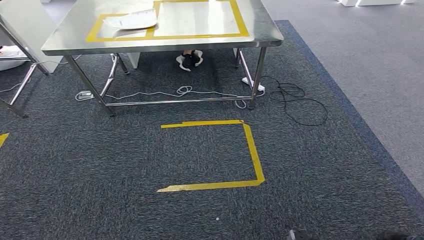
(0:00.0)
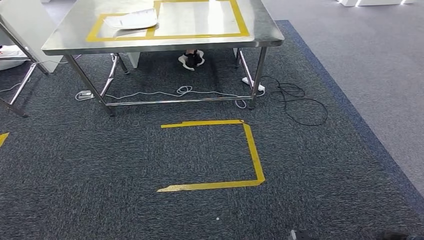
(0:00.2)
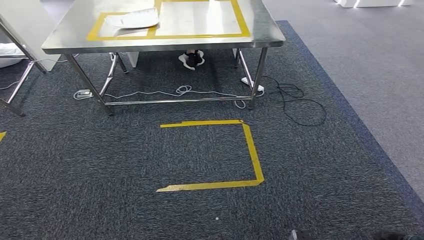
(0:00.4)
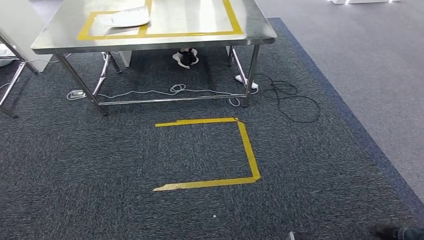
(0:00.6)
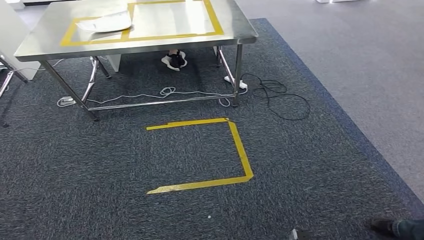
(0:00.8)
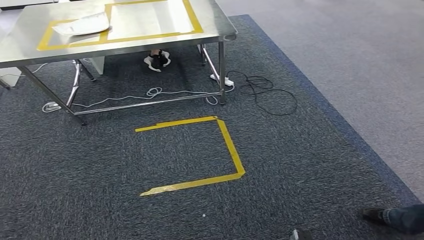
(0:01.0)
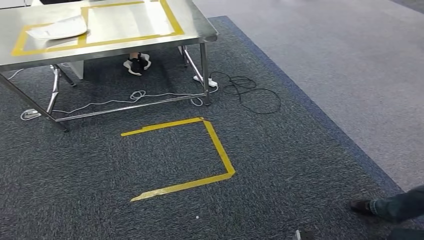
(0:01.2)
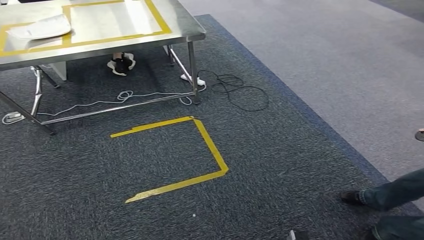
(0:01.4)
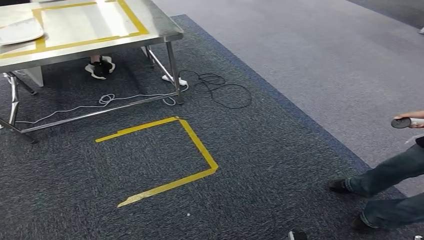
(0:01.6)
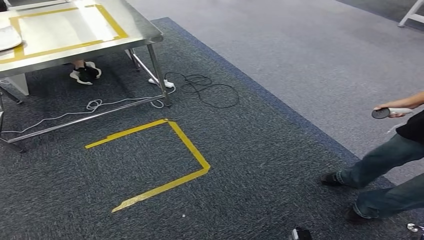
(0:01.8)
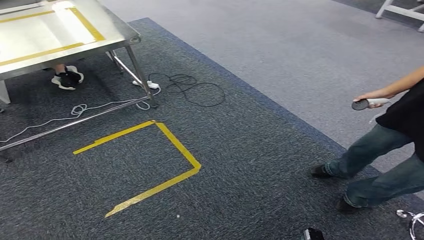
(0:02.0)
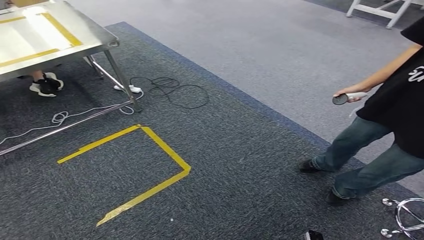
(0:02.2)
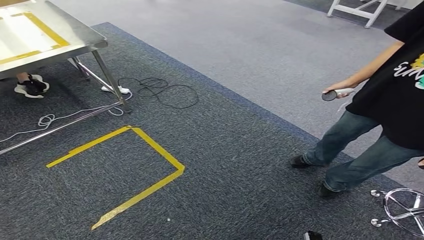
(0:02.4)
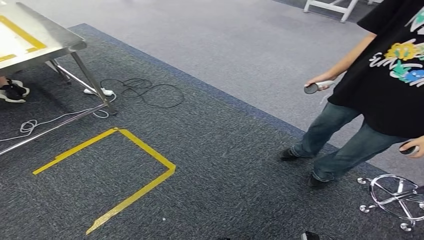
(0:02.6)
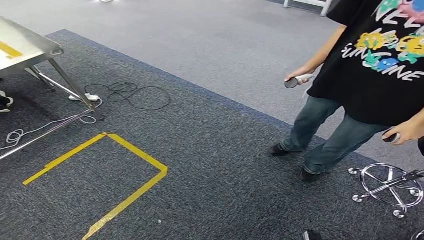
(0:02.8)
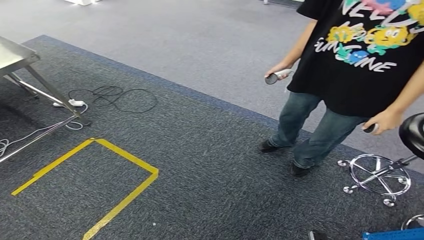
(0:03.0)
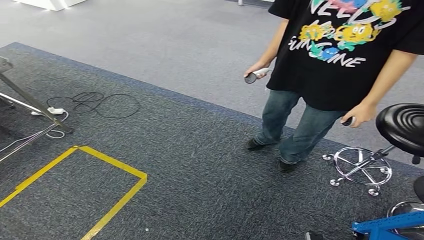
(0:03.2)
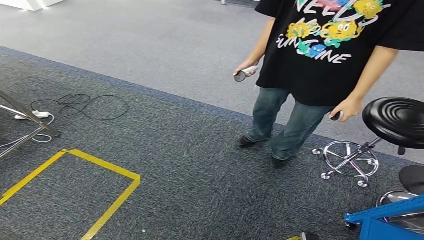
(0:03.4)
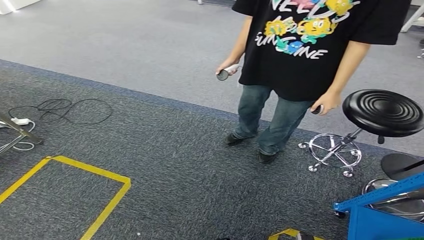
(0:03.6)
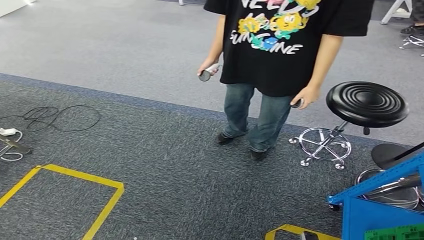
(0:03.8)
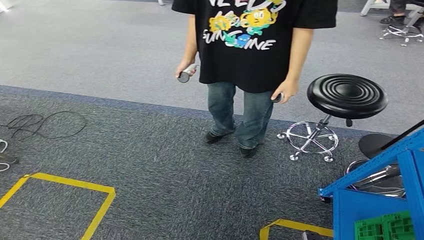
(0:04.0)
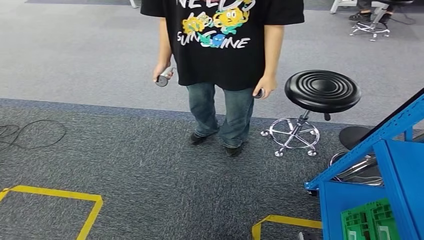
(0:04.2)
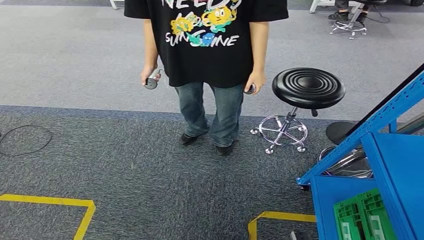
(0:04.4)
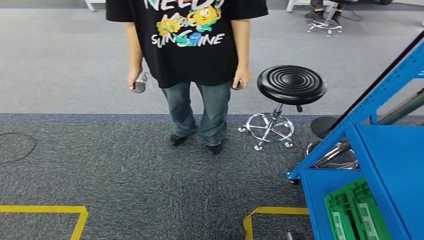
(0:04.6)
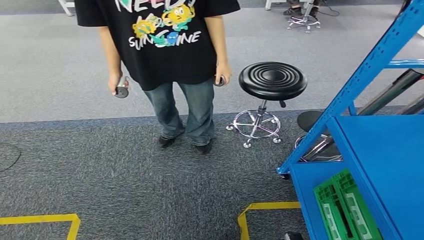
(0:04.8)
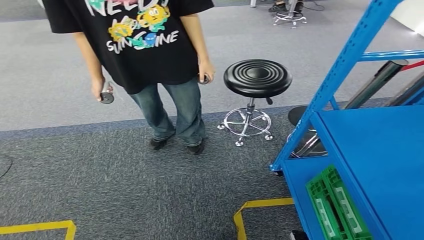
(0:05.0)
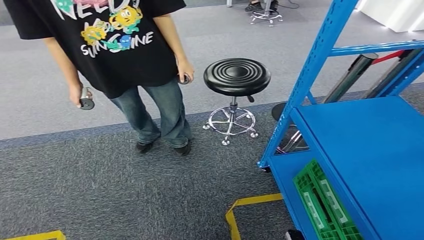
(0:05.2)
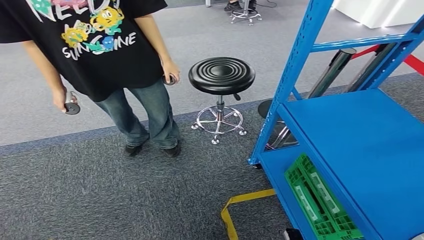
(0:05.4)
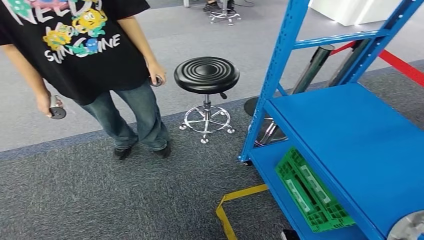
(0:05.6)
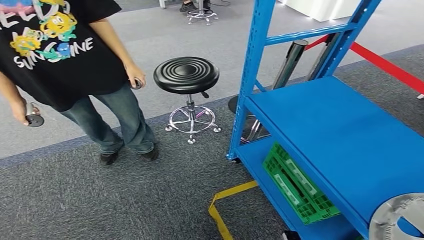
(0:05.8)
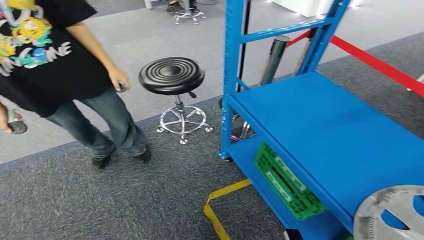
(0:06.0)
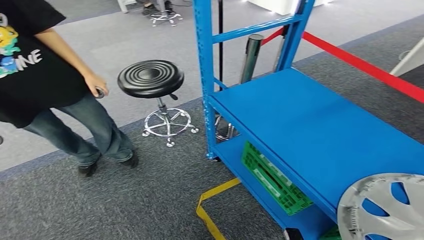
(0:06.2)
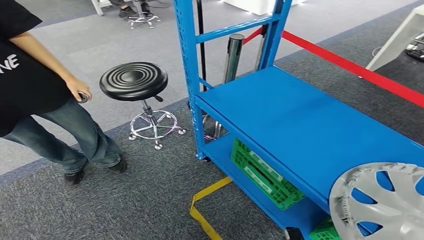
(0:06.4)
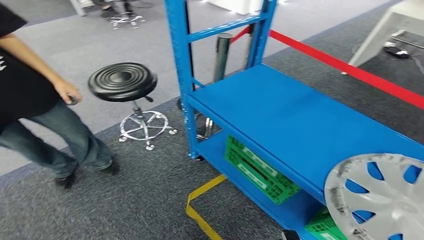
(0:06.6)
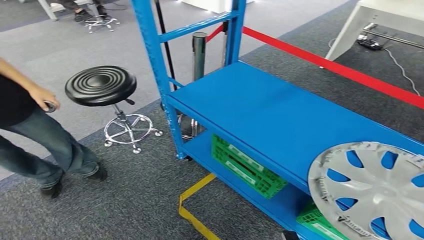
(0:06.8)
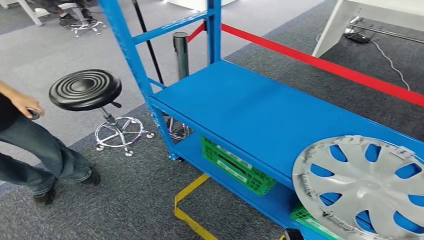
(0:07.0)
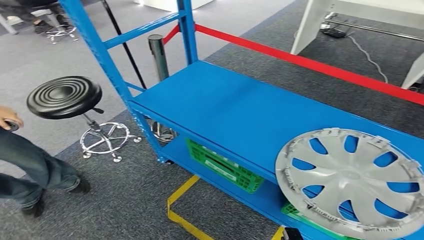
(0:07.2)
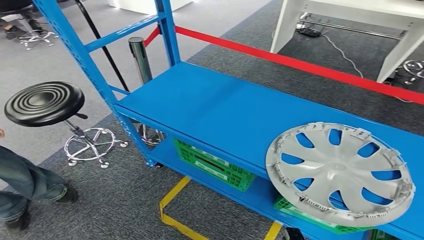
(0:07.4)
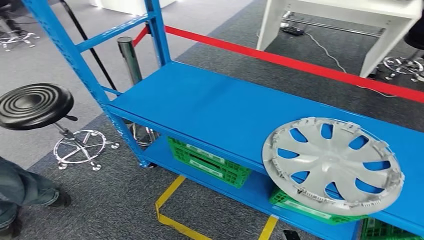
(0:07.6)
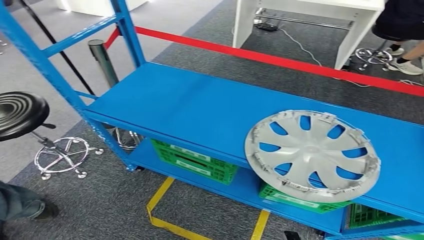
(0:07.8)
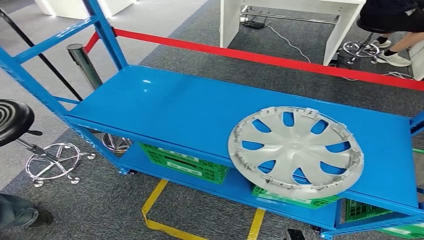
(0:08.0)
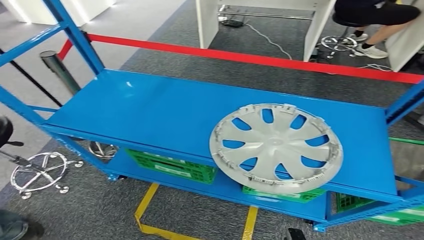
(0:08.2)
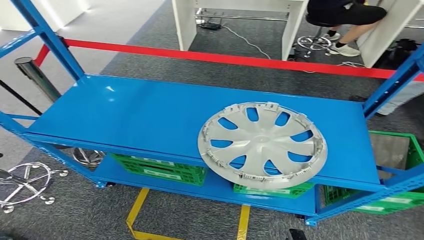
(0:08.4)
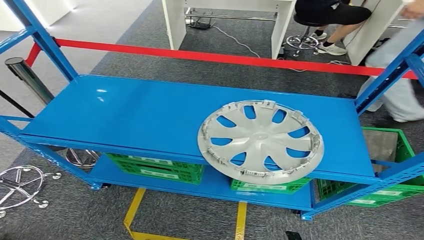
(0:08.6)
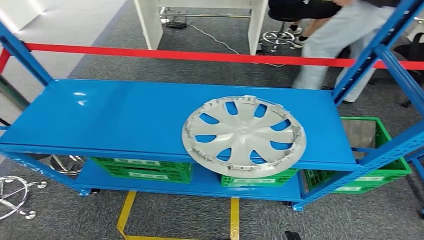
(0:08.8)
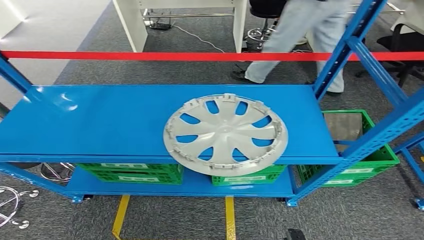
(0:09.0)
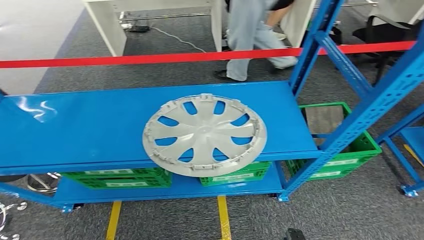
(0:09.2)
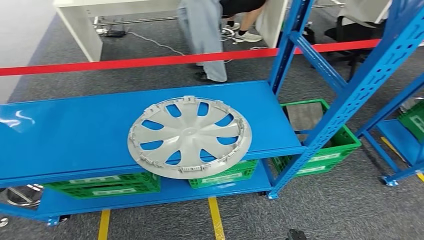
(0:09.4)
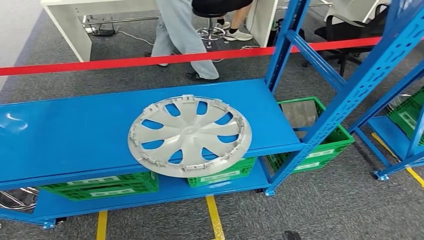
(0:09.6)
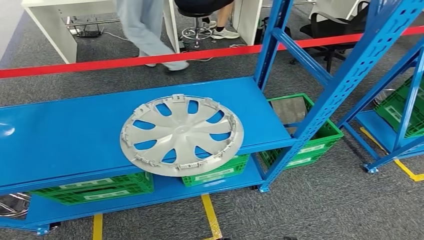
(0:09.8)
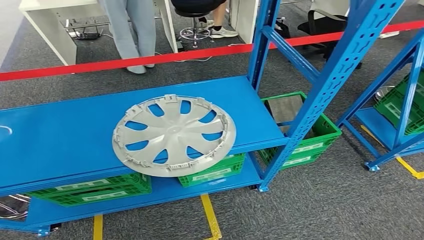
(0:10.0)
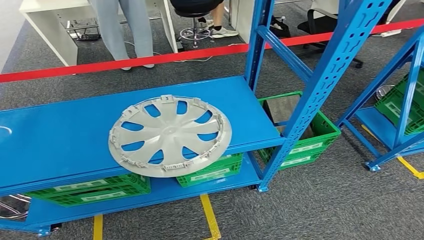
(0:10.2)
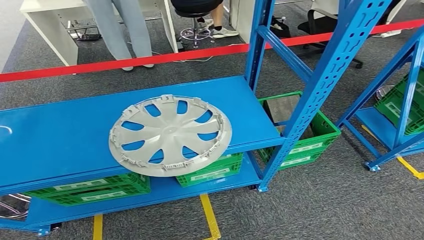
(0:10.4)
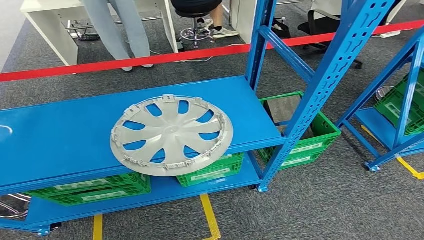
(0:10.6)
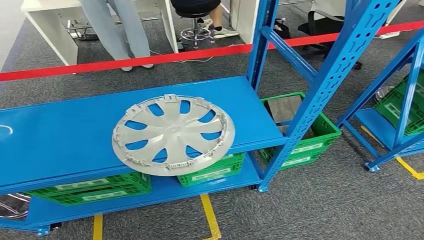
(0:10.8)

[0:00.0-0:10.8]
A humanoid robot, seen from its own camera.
Step, 0:00.0 to 0:10.6: Return to the initial position at the workbench.
